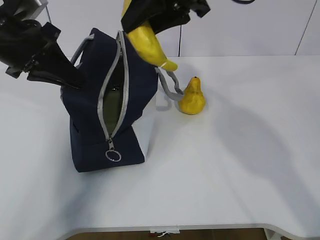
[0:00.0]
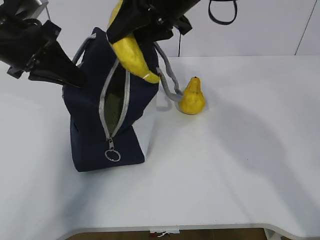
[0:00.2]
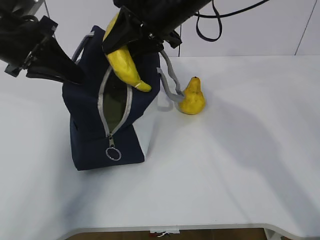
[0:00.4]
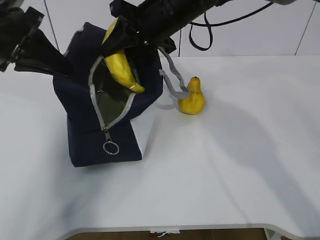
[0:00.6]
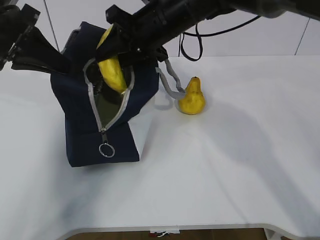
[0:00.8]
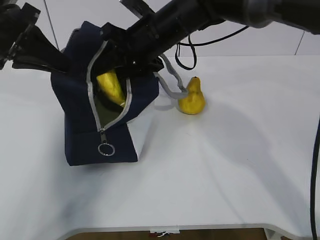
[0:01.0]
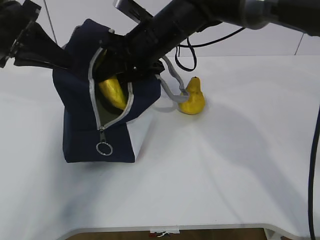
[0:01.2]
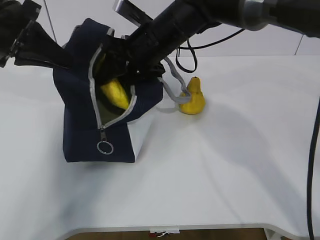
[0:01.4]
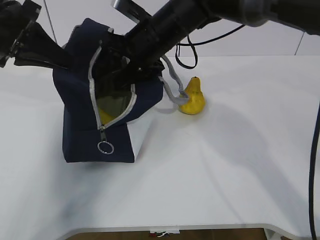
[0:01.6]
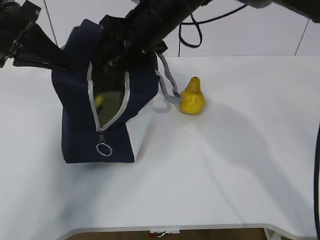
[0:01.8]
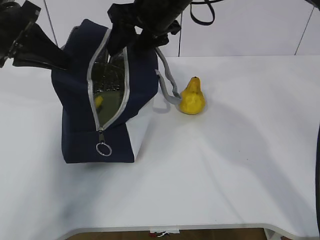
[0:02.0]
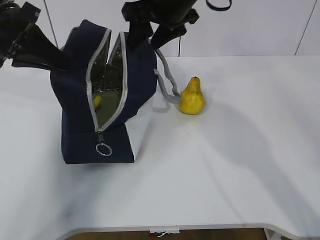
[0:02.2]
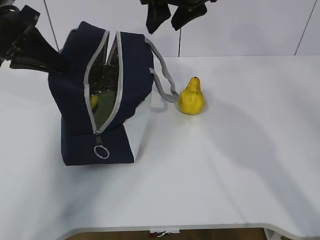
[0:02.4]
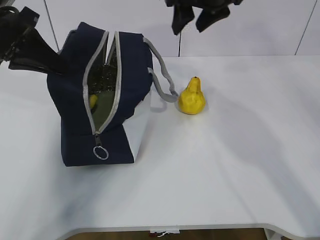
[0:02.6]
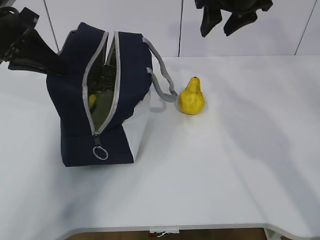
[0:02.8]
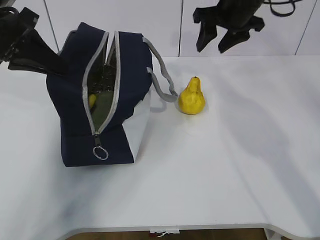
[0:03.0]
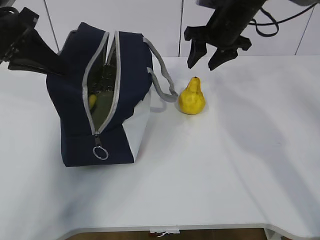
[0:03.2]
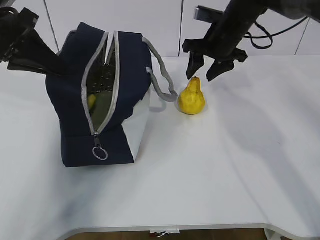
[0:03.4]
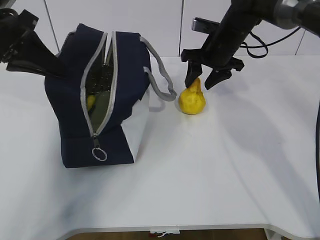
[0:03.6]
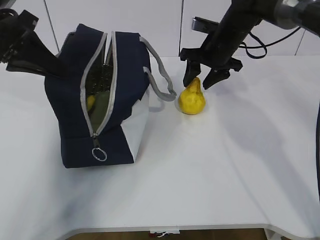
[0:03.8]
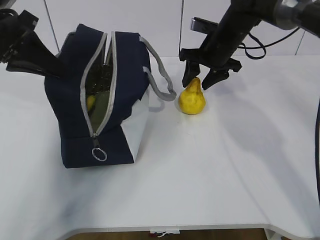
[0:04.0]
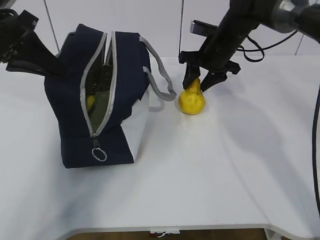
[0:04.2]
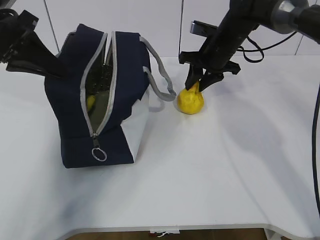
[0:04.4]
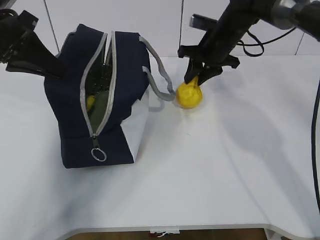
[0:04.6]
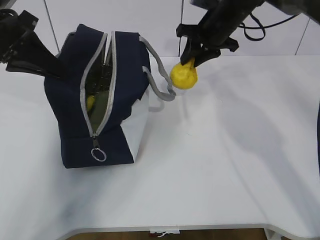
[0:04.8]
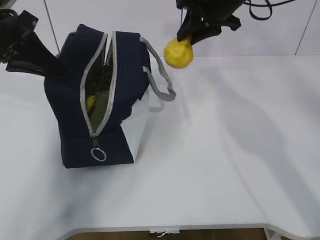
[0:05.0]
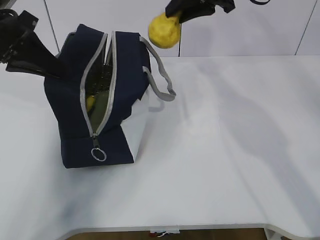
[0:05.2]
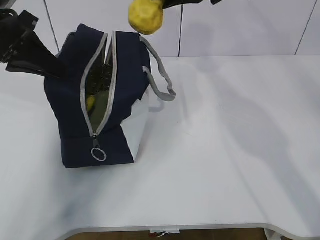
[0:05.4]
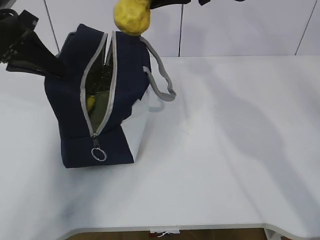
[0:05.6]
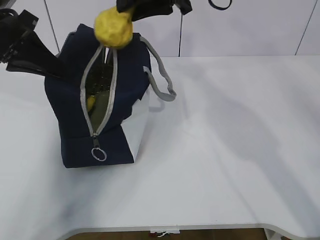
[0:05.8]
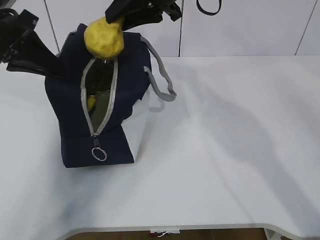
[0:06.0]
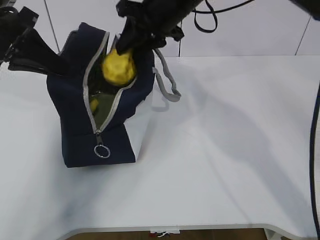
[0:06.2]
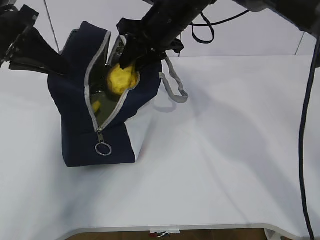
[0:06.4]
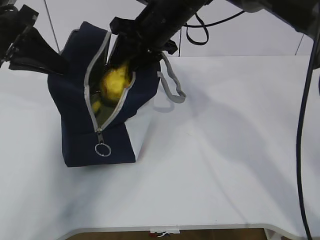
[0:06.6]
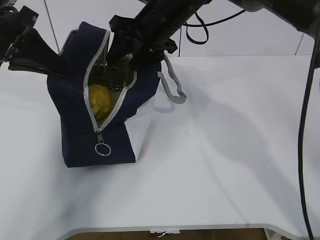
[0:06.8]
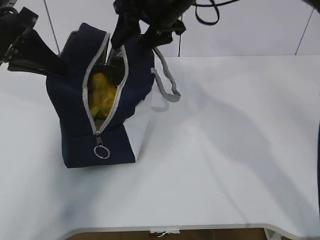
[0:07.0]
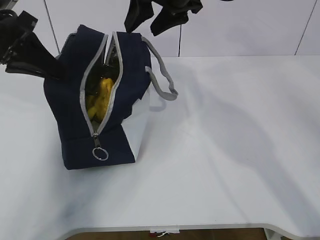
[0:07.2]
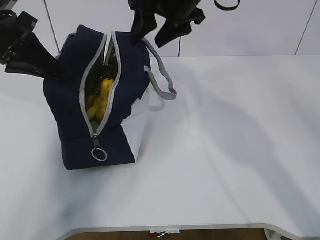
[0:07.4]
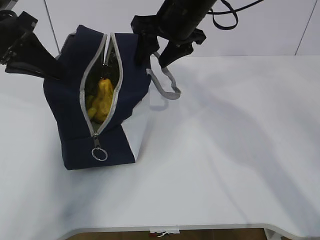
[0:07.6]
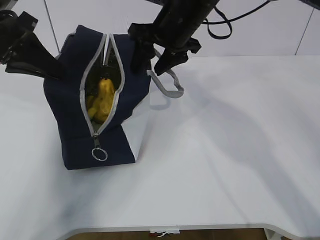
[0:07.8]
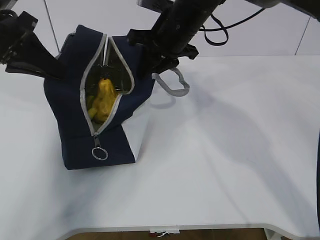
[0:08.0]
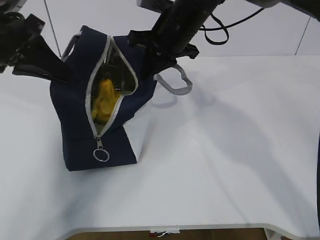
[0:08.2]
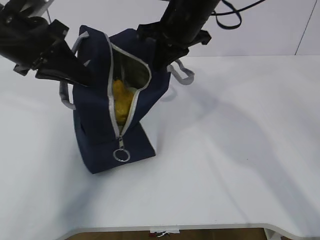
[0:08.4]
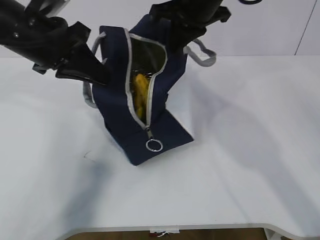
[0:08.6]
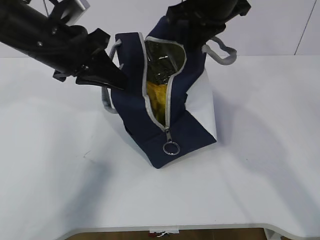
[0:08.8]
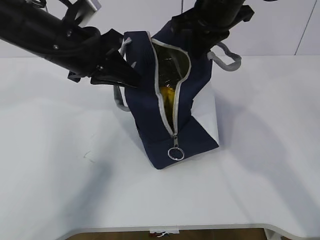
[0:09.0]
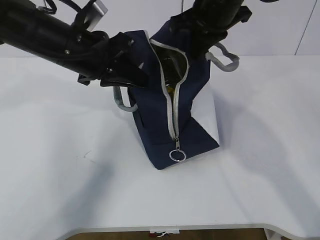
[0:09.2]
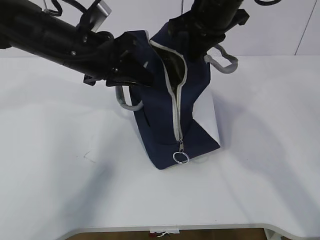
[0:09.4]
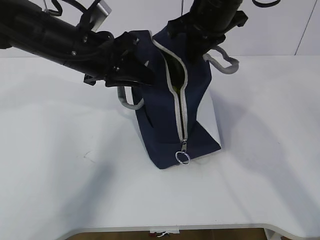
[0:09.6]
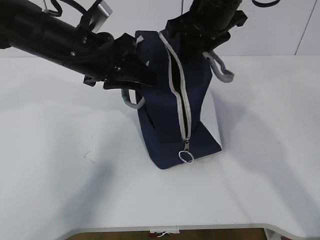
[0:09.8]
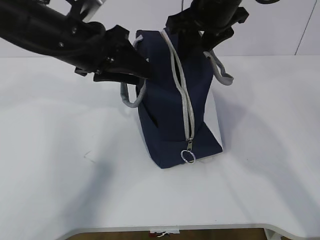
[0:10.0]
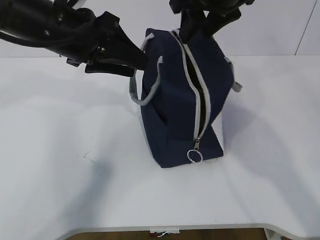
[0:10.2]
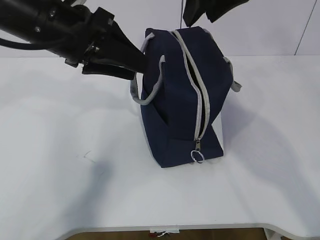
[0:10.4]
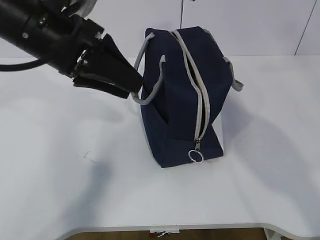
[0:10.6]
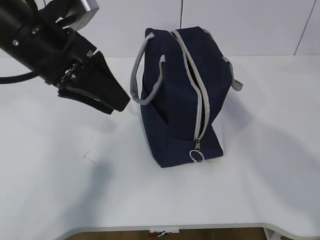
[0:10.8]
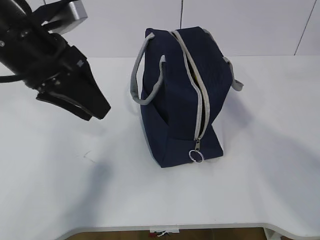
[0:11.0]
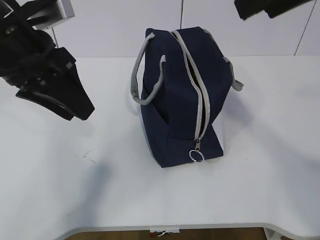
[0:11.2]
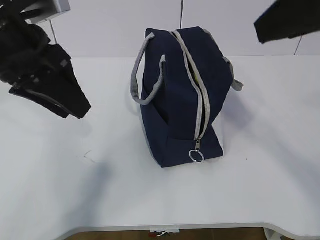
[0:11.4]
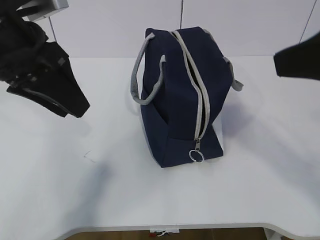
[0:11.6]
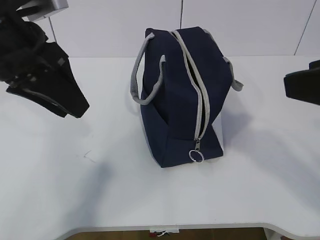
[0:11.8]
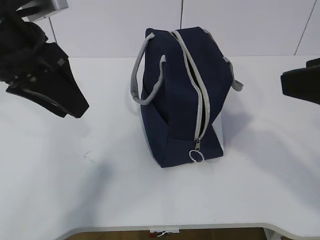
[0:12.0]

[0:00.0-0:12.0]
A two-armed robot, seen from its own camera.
Step, 2.2 to 2.6 s: Grab the lunch bag with your right hand.
Step, 2.8 to 4.4 s: Move the lunch bag to the right.
0.0 to 1.6 s: The right gripper shifts some 10 cm downward and to the left, and opens up.
1.6 to 3.0 s: The right gripper moves to the right, some 15 cm.
3.0 to 4.4 s: The right gripper goes approximately 10 cm downward, and closes its fingers.
4.4 to 6.0 s: The right gripper travels upward, to the left and backward by about 20 cm.
6.0 to 7.6 s: The right gripper swings up and down, some 5 cm each way, with 2 reversals, and opens up.
7.6 to 9.0 s: The left gripper is displaced to the right by about 10 cm; the right gripper ends up roughly 5 cm from where it was, and closes.
9.0 to 10.4 s: The left gripper opens up; the right gripper travels upward by some 5 cm, and opens.
10.4 to 12.0 s: The left gripper changes place by about 5 cm. The right gripper moves backward, roughly 20 cm.

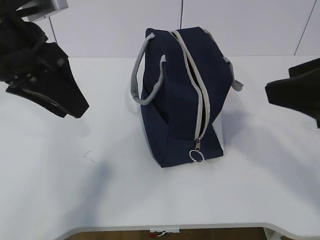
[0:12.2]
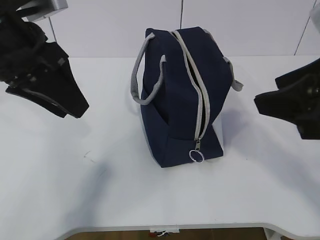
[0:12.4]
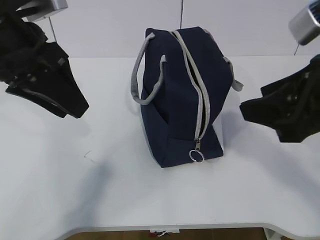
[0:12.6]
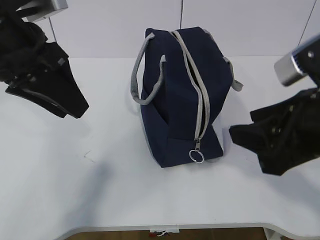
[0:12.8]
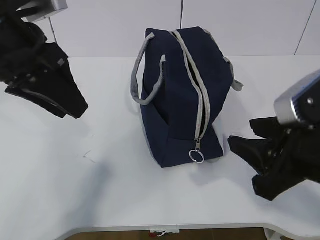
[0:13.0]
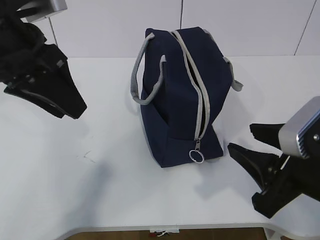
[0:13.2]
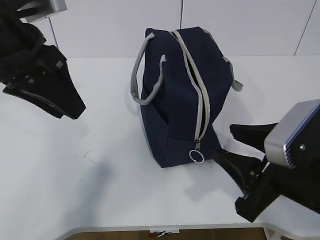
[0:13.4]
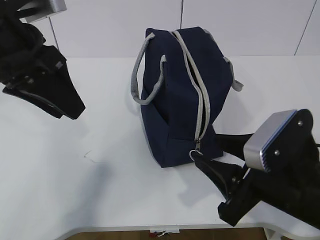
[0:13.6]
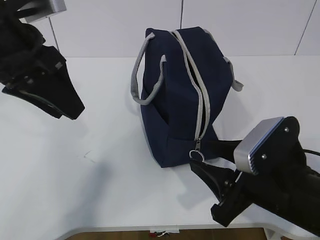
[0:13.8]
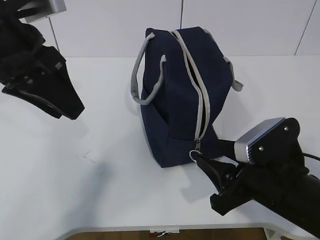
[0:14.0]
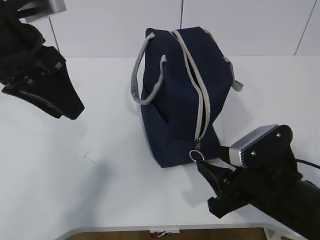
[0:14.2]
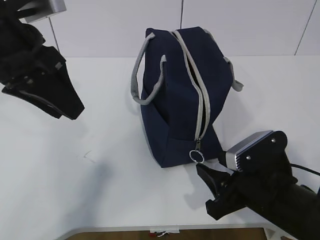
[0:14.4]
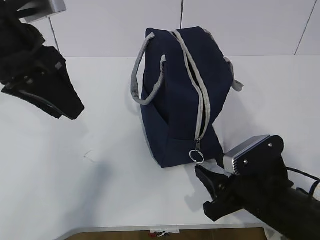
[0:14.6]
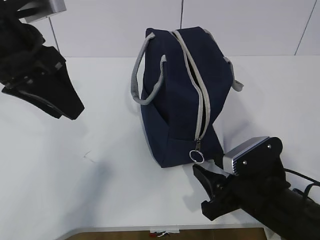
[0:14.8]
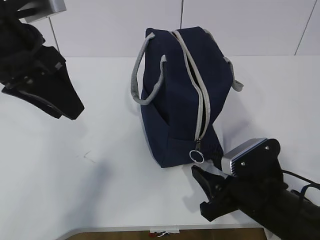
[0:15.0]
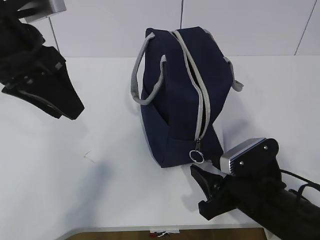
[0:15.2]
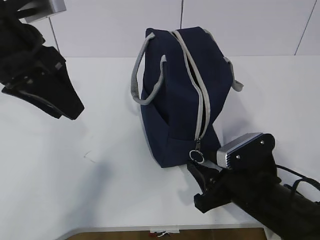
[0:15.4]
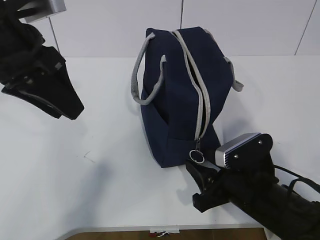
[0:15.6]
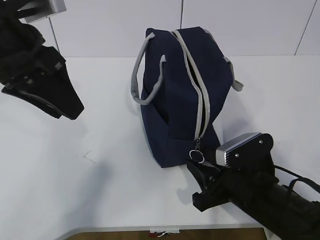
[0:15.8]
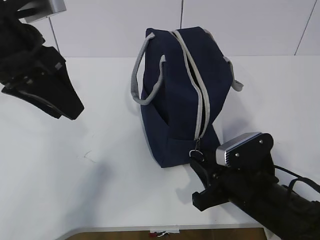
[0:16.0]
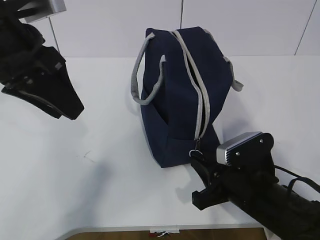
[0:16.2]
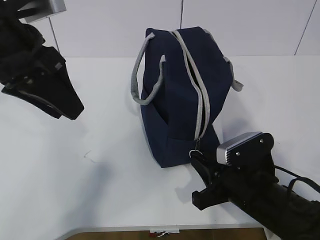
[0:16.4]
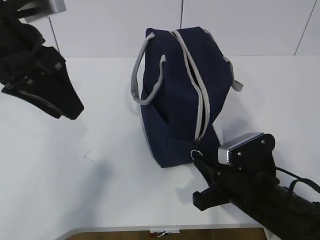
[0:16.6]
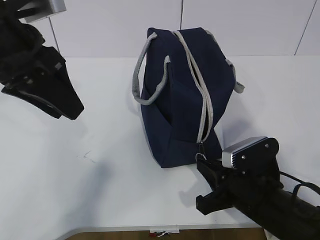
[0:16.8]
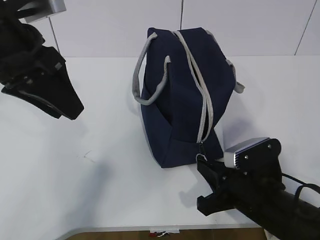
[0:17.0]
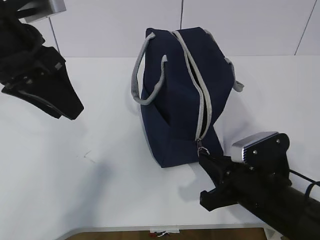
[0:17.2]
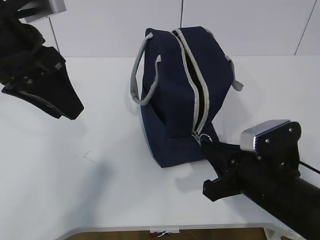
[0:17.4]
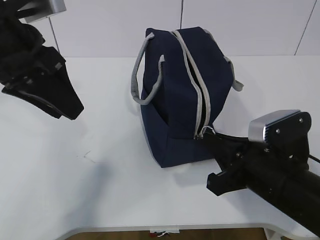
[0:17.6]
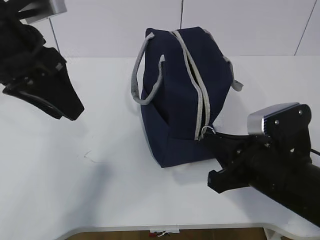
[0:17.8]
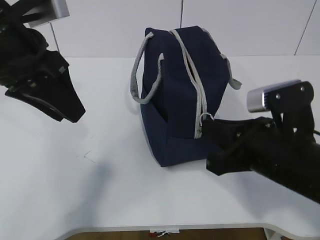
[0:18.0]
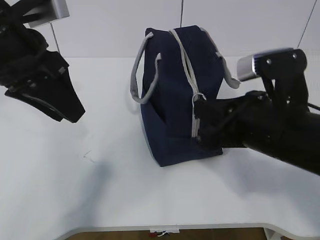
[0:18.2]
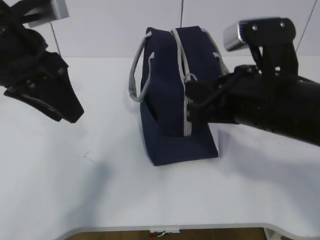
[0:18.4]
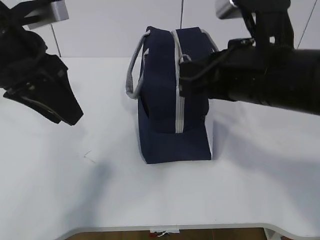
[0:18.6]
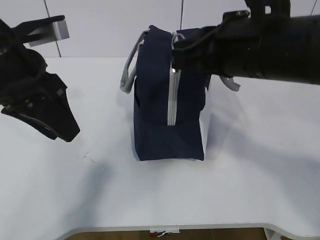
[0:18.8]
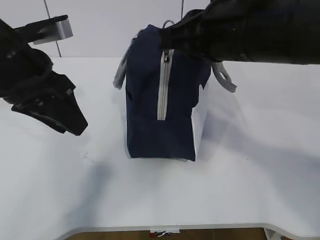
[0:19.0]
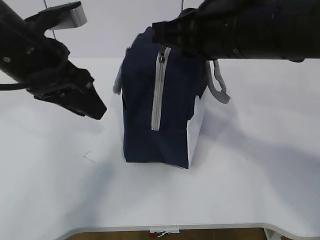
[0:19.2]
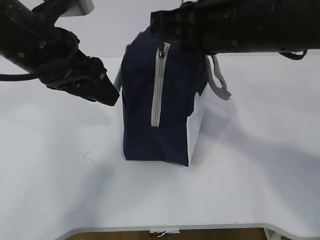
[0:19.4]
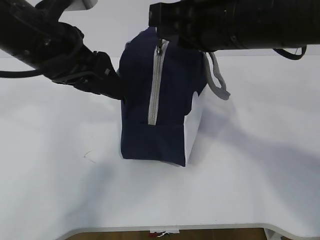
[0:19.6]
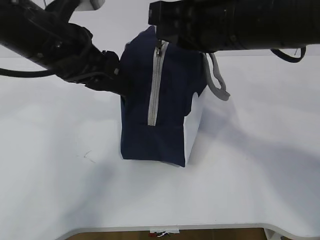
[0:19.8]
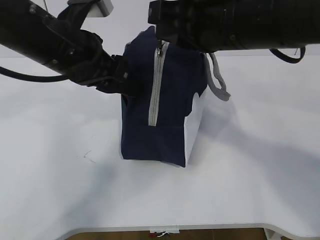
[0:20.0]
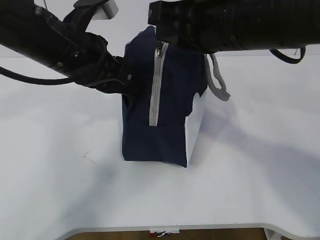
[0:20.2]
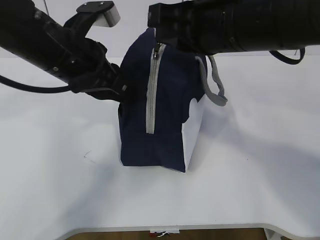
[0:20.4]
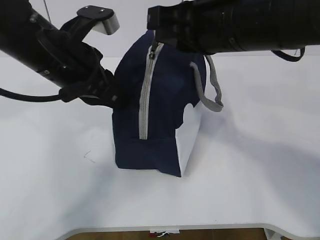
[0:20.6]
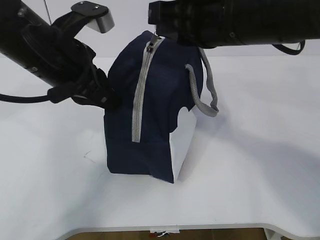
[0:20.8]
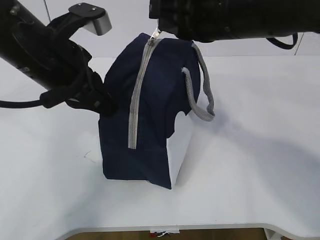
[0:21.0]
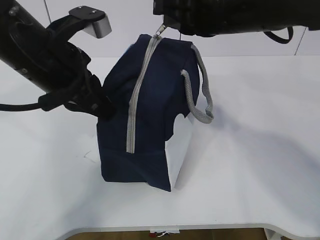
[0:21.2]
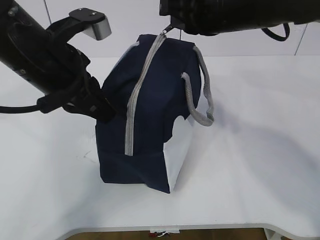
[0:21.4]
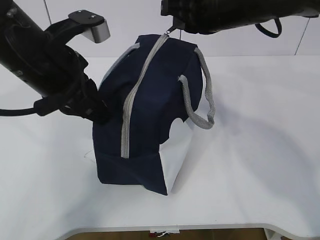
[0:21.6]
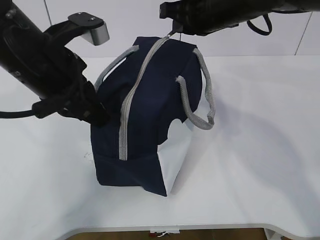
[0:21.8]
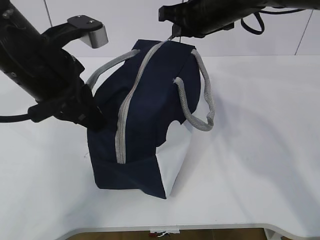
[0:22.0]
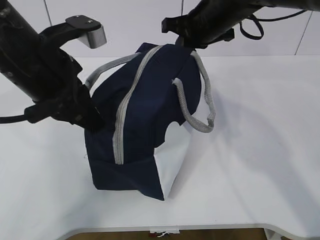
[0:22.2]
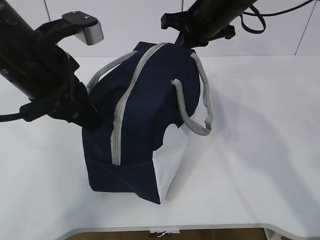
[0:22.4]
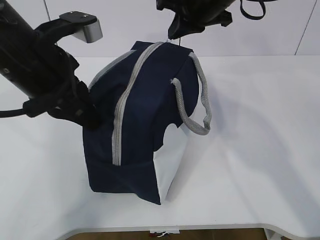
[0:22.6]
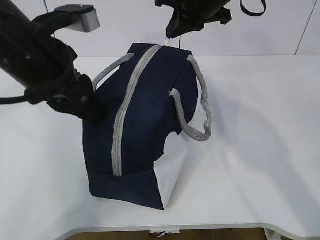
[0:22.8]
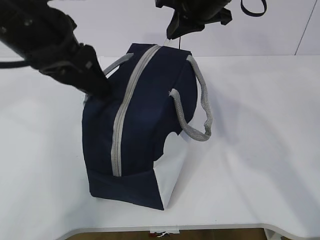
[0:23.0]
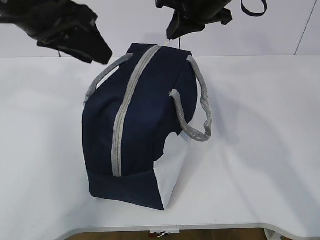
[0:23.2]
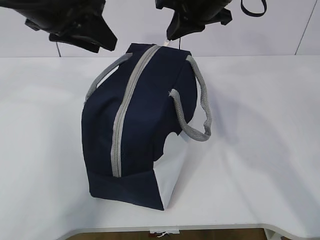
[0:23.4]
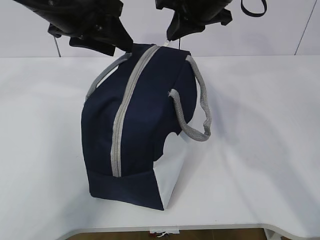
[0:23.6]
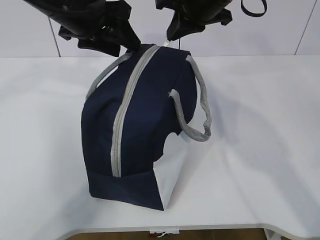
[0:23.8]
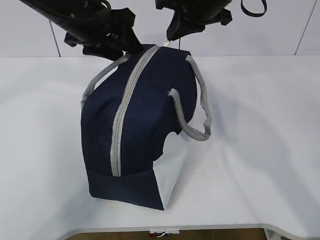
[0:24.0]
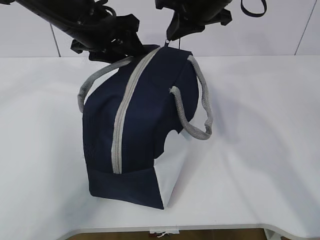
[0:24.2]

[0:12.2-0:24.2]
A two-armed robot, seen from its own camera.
Step, 14.8 to 18.4 s: Pull the zipper with your right hand.
Step, 18.6 to 18.8 s: Grab the lunch bag with your left hand.
12.2 to 13.8 s: The right gripper moves downward, about 15 cm.
13.8 to 15.2 s: The right gripper moves downward, about 5 cm.
15.2 to 16.6 s: The right gripper closes up.
16.6 to 18.2 s: The right gripper travels upward by some 15 cm.
18.2 to 19.8 s: The right gripper travels upward and forward by about 10 cm. Meanwhile the left gripper shifts by approximately 5 cm.
19.8 to 21.2 s: The right gripper goes approximately 5 cm forward, while the left gripper closes its fingers.
21.2 to 22.6 s: The right gripper shifts about 10 cm forward.
22.6 to 24.2 s: The left gripper shifts roughly 10 cm forward, and opens up.
